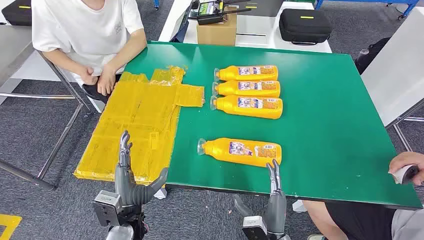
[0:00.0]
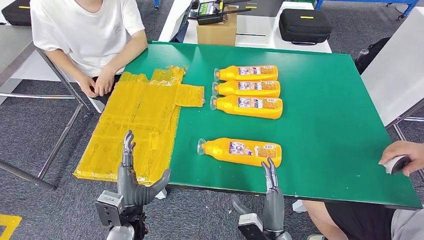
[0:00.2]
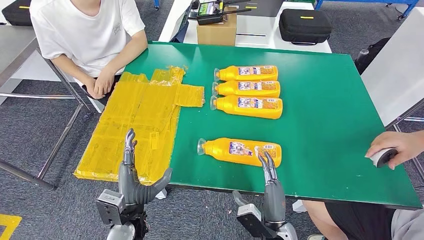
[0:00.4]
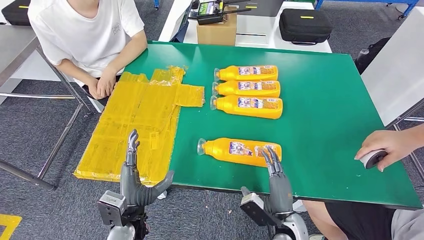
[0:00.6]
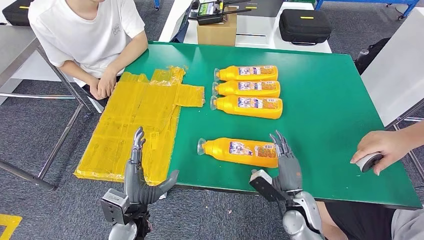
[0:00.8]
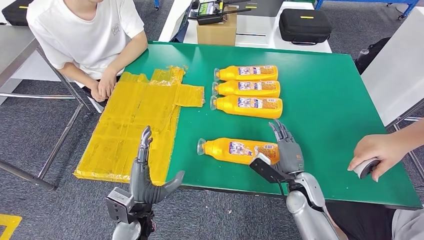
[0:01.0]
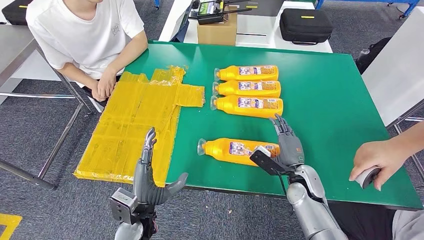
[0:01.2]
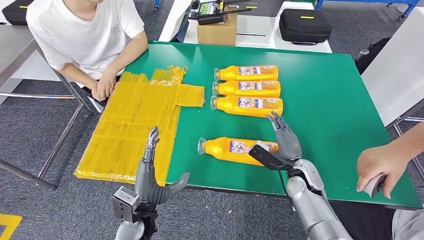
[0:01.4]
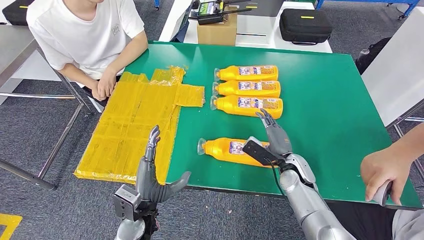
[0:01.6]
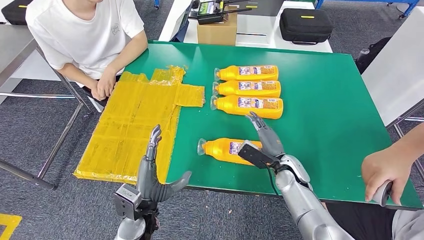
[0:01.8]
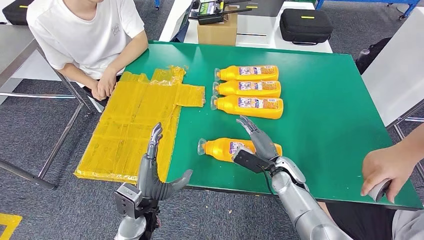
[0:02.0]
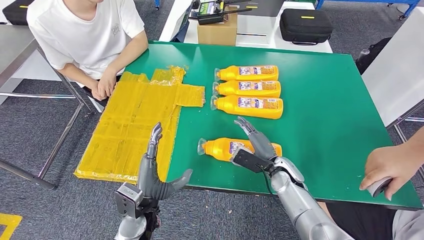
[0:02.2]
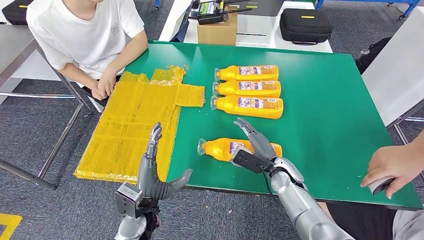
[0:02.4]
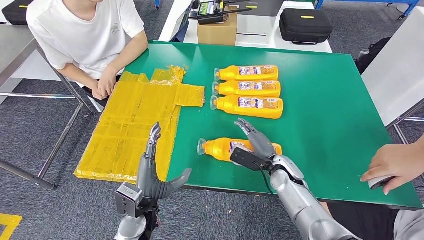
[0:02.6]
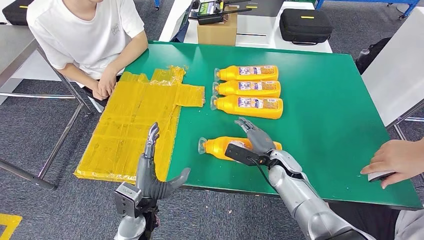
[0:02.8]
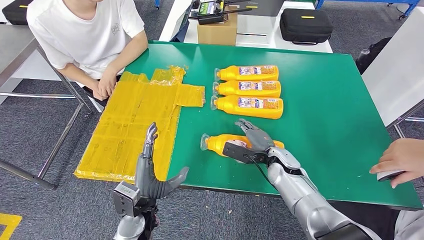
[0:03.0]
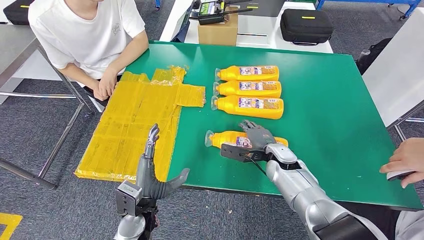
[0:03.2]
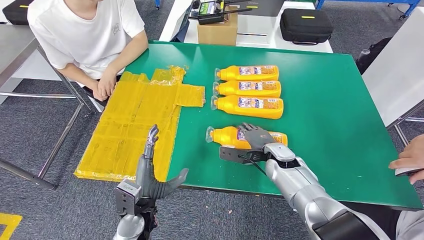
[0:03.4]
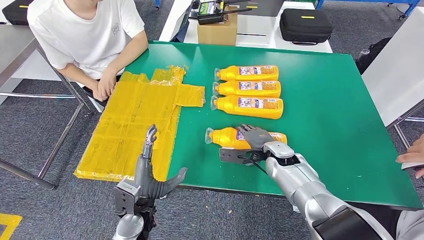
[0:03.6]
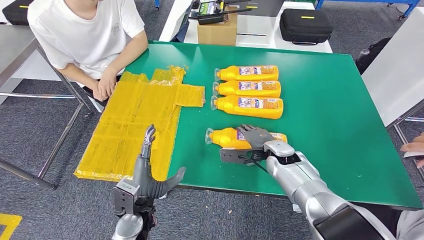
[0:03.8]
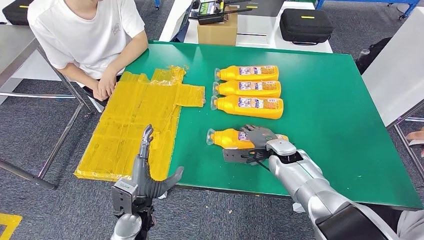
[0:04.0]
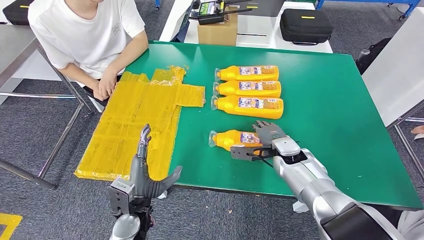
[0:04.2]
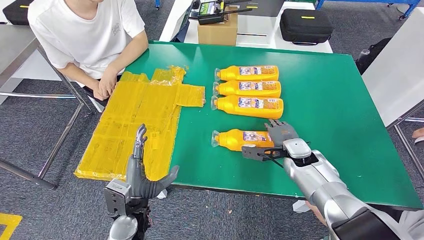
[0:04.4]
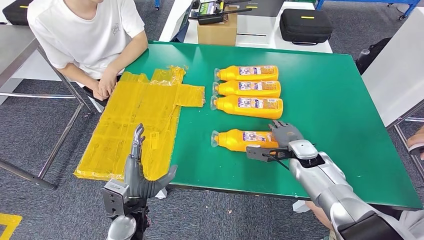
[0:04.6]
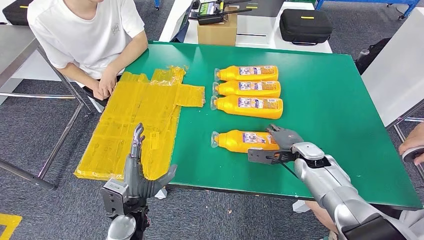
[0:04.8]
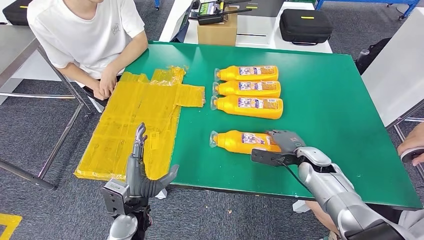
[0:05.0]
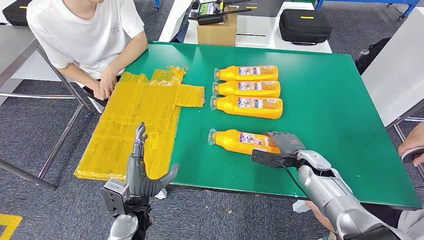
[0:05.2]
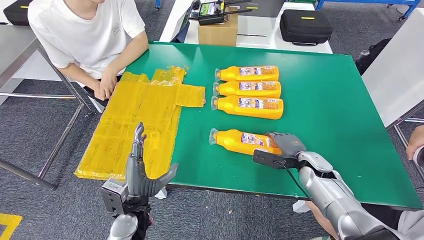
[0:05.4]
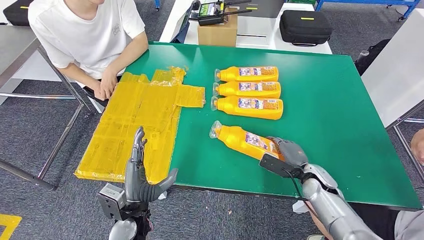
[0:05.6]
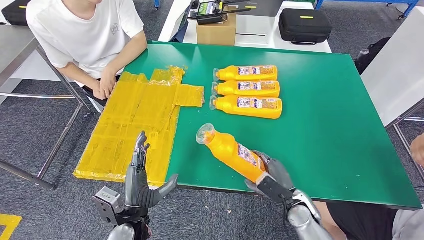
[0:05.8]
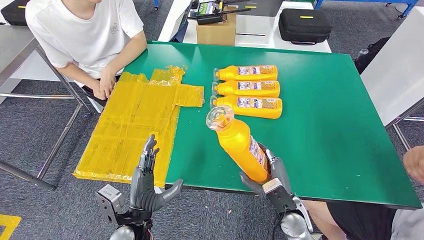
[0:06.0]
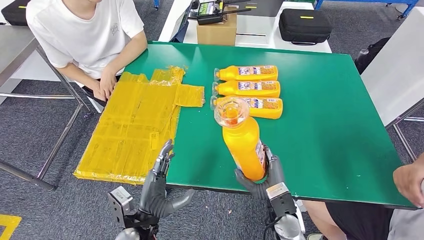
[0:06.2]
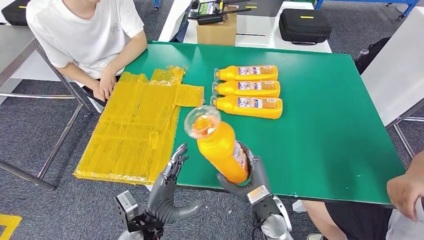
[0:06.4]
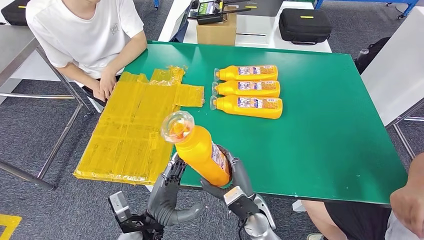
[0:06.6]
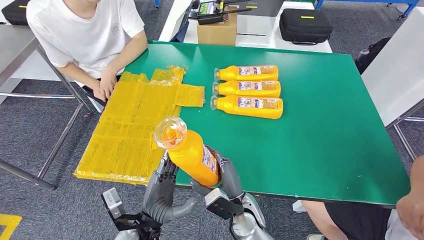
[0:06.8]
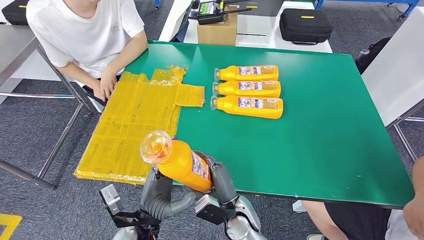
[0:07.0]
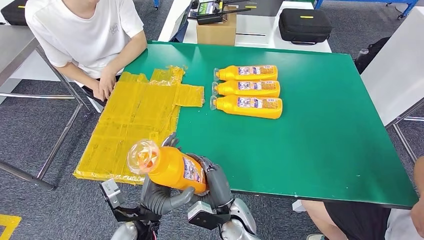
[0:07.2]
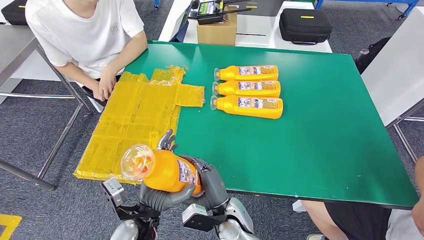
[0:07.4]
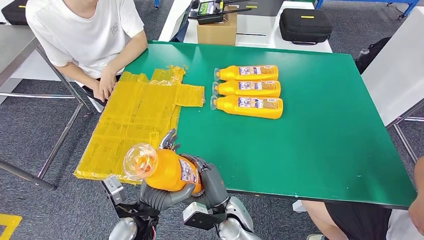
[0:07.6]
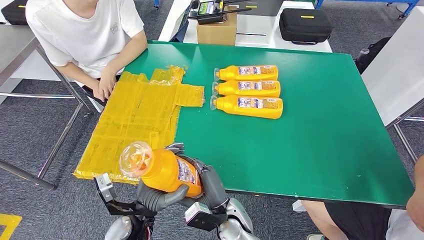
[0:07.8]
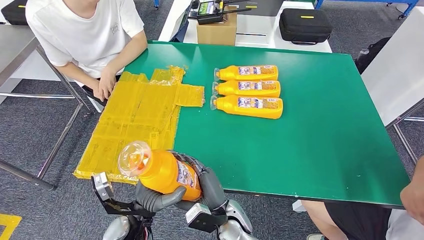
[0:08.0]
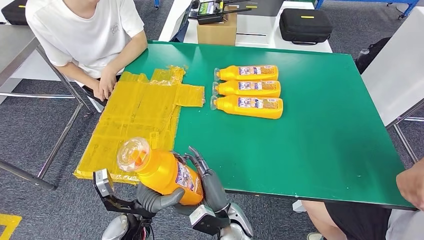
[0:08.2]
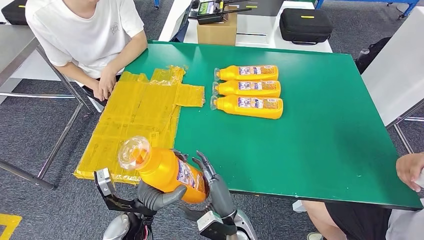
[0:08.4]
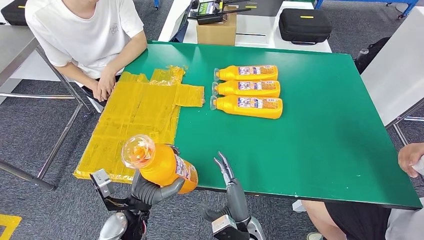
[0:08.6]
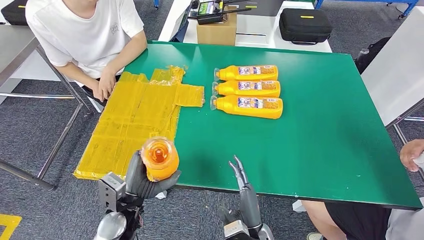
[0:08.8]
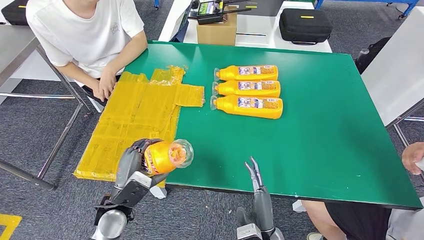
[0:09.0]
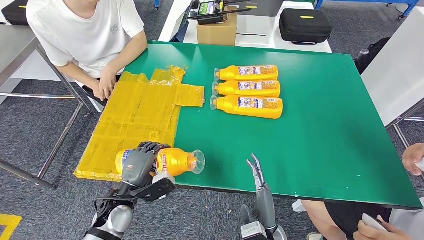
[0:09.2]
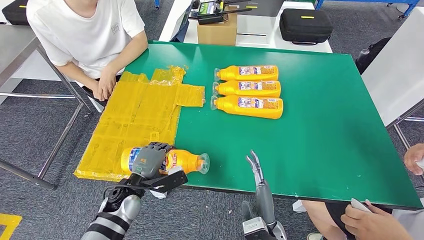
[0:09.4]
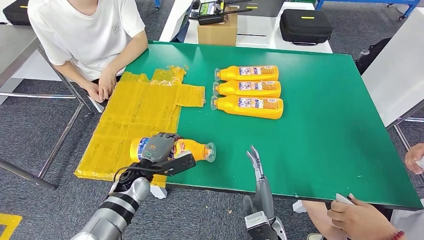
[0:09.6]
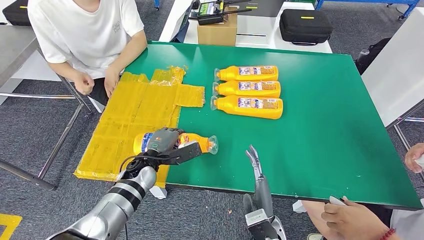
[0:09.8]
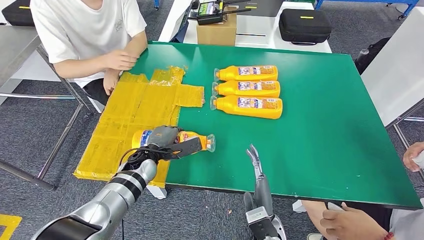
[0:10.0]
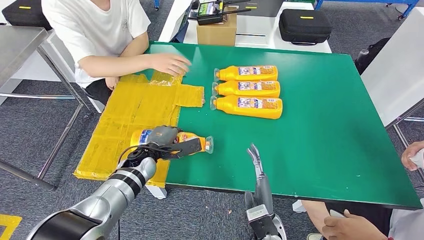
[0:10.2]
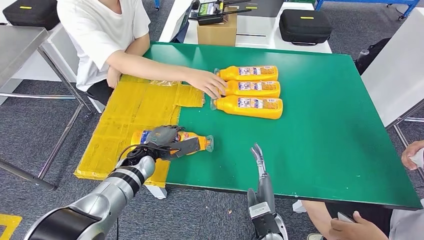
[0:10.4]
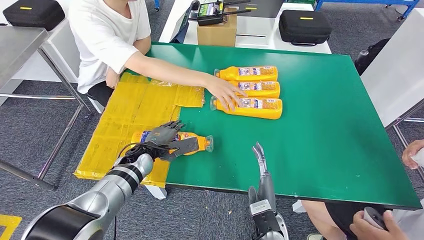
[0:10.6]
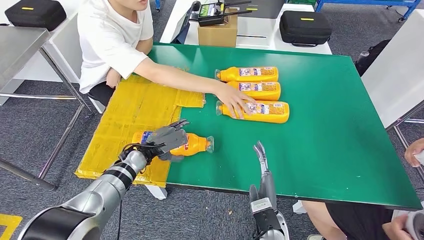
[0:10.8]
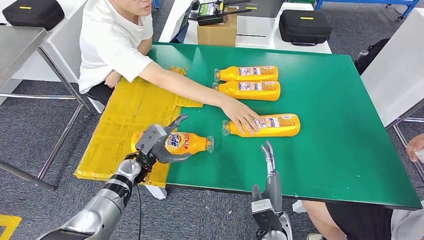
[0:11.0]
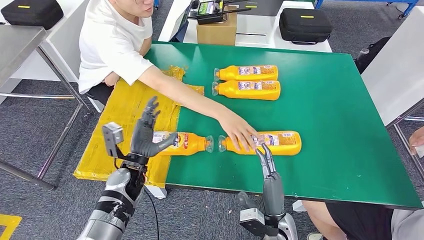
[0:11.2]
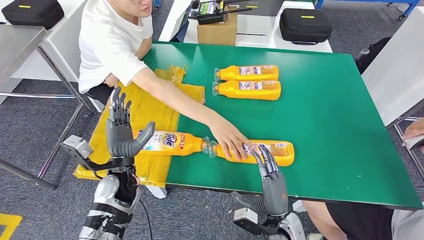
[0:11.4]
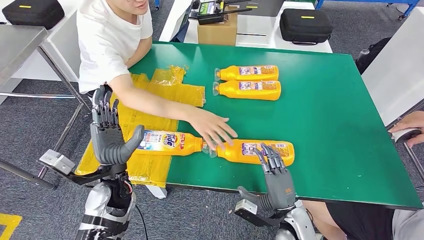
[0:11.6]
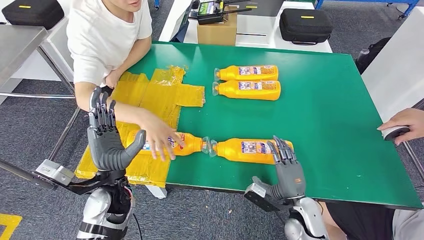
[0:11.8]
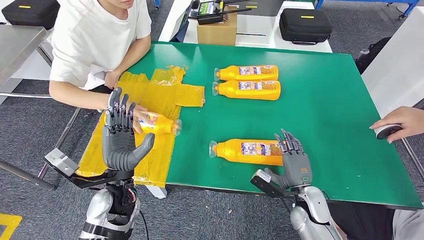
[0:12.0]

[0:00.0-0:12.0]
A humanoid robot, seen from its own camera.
Step, 0.0 to 7.2 s: Take the bottle from the table.
Step, 7.4 to 12.0 s: Flip the bottle to face forward.
3.0 to 4.4 s: The right hand changes place by some 5 cm.
4.4 to 6.0 s: The right hand heads backward, covering about 15 cm.
6.0 to 7.6 s: The right hand travels to the left by approximately 15 cm.
7.6 to 9.0 s: The right hand shifts approximately 10 cm to the right and backward. The left hand shifts approximately 5 cm to the left.

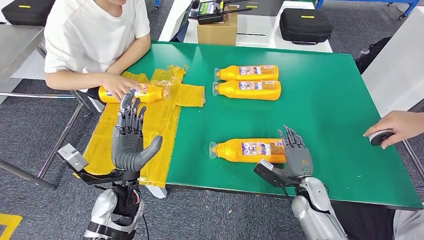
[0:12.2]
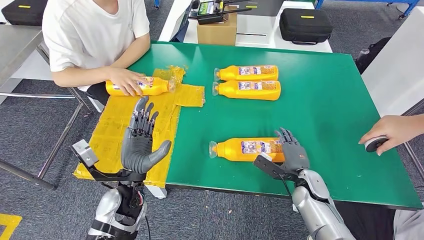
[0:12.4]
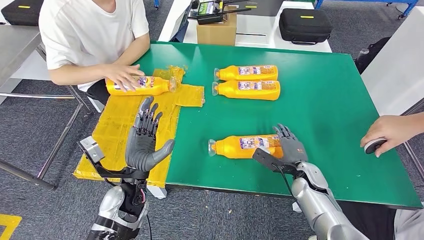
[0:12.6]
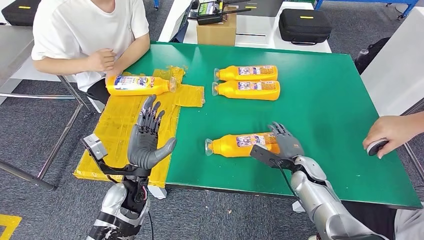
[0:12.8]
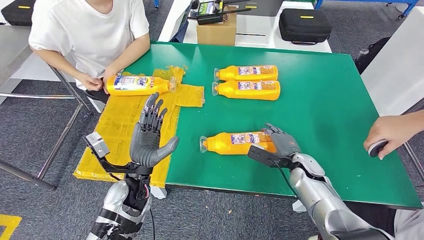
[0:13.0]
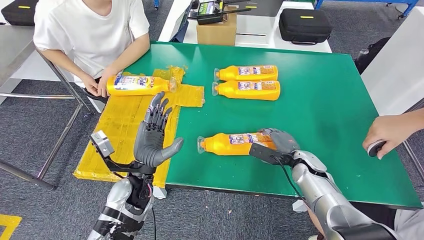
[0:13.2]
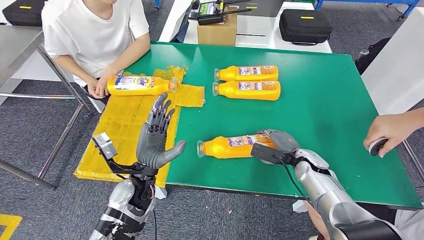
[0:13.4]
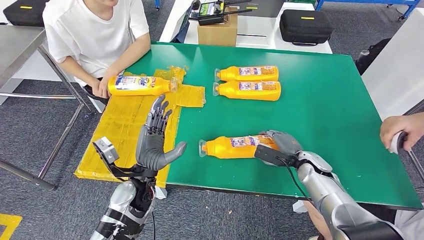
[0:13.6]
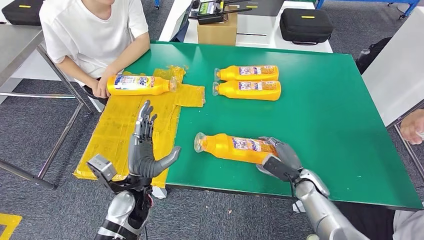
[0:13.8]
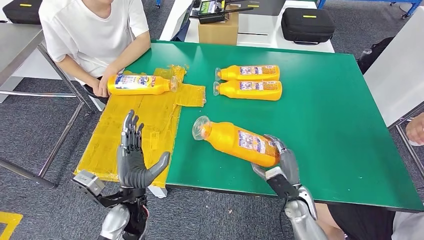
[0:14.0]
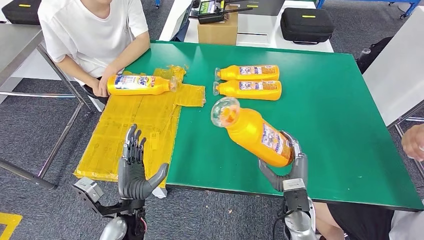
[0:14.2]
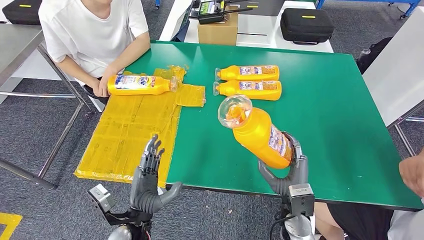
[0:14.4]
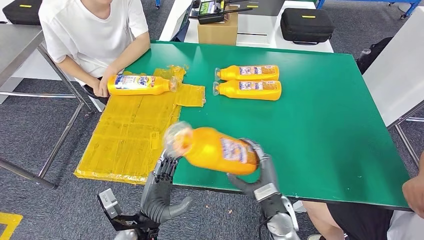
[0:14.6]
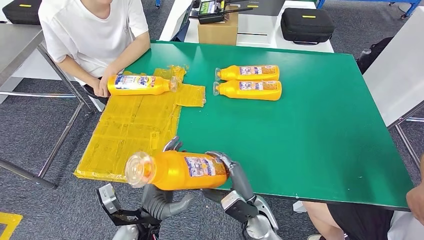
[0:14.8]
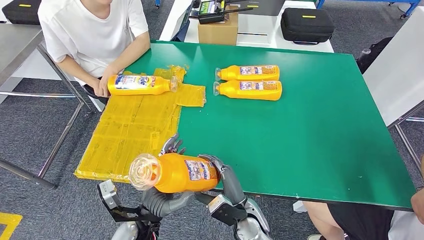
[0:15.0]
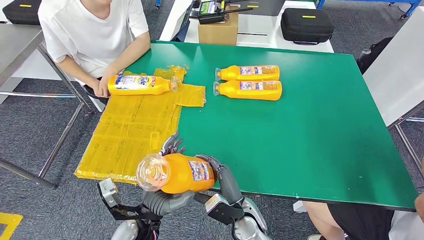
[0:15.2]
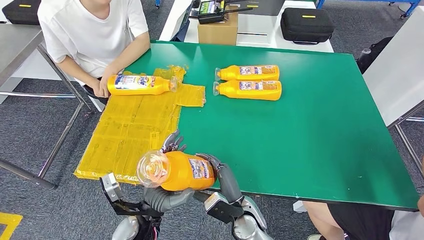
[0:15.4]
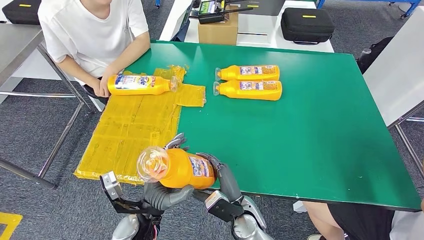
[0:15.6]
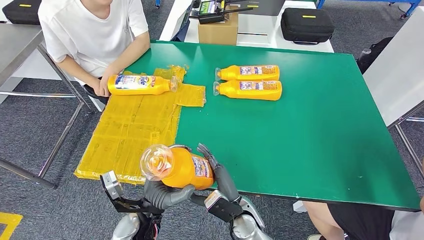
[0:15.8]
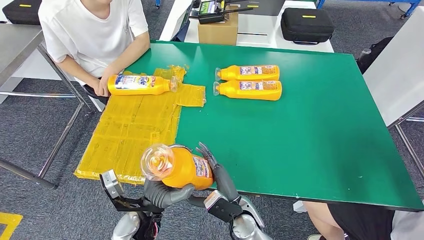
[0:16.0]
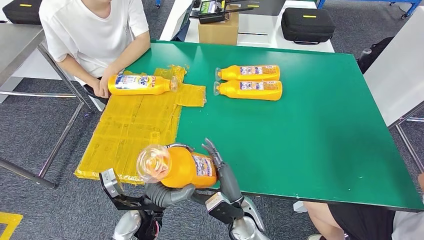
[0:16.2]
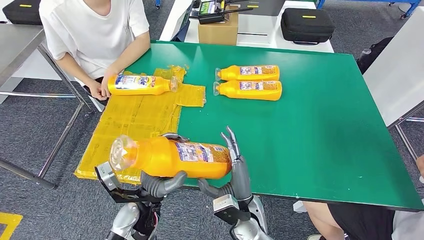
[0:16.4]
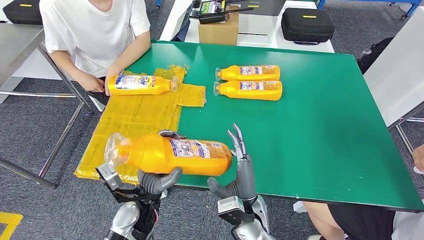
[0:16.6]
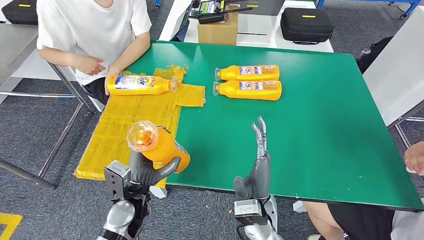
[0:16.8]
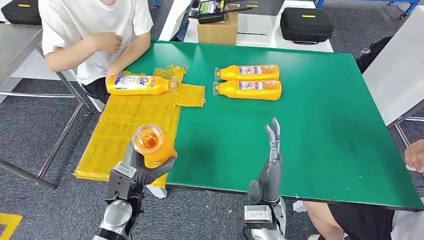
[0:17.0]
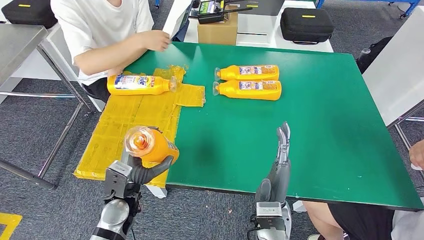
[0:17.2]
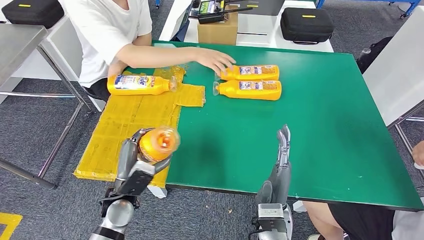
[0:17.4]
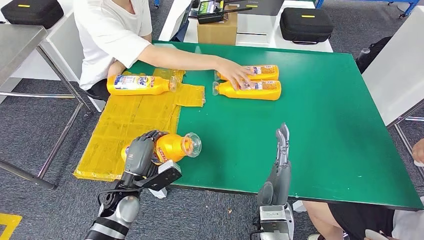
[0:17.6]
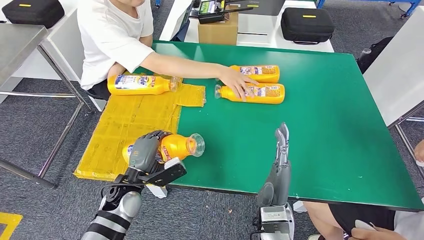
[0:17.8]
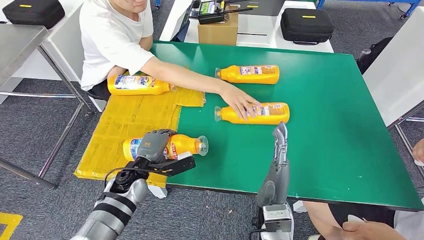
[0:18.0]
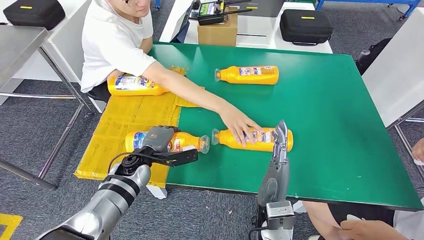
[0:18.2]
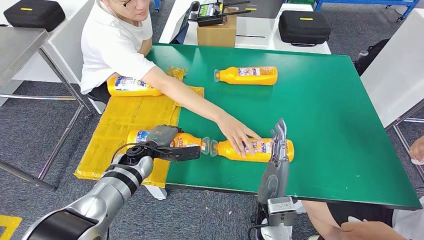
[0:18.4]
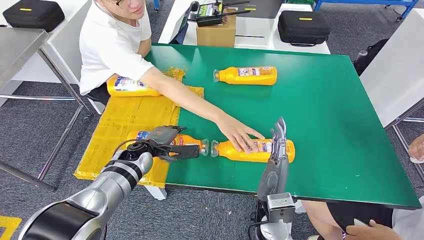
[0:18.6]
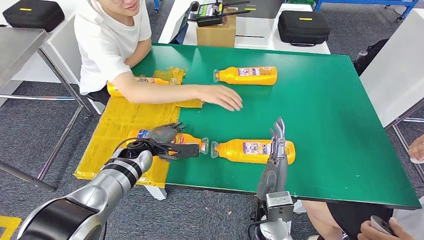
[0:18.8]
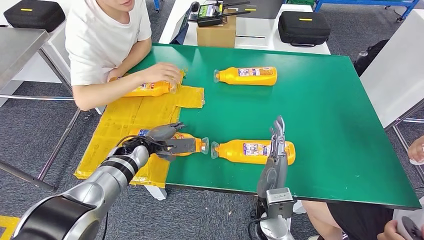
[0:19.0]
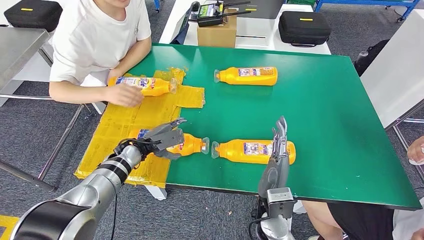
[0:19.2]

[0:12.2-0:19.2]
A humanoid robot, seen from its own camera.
Step, 12.2 to 15.2 s: Pick up the bottle from the table.
15.0 to 16.4 s: There are only small adjustments of the hands.
